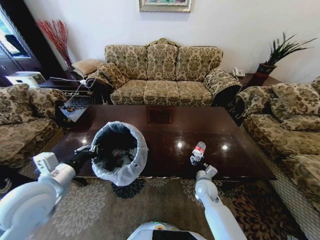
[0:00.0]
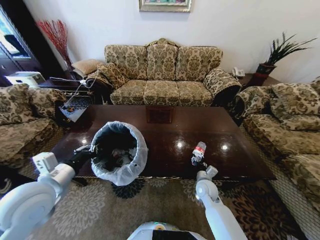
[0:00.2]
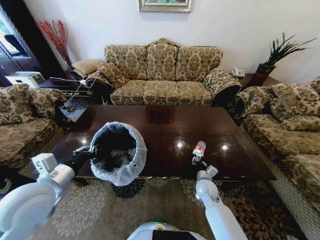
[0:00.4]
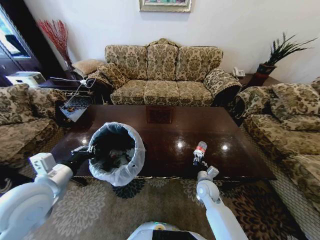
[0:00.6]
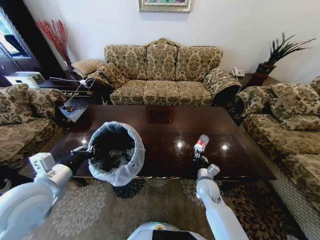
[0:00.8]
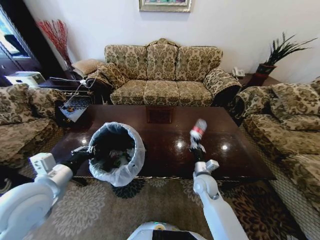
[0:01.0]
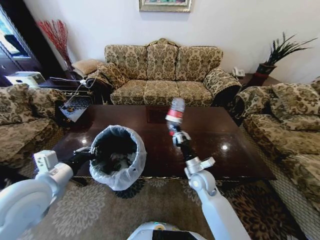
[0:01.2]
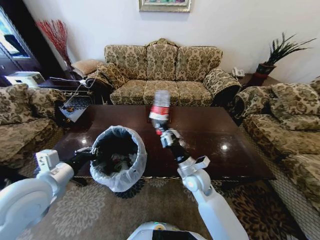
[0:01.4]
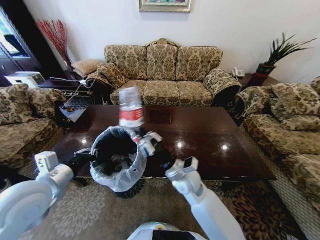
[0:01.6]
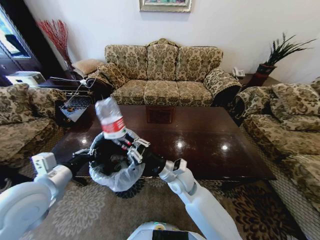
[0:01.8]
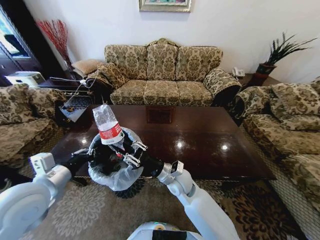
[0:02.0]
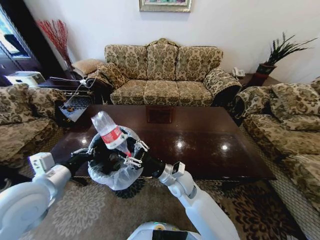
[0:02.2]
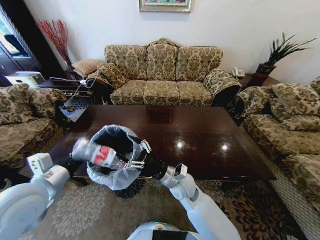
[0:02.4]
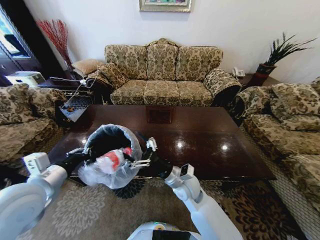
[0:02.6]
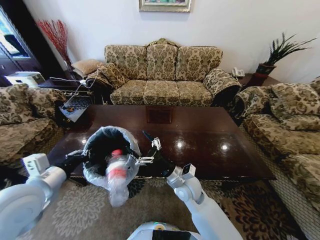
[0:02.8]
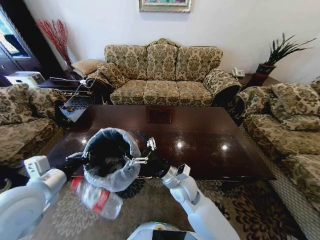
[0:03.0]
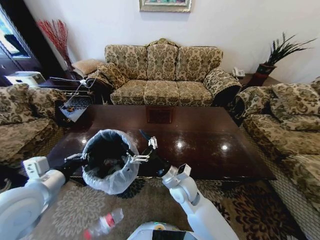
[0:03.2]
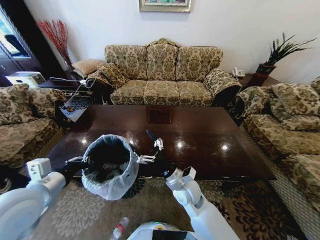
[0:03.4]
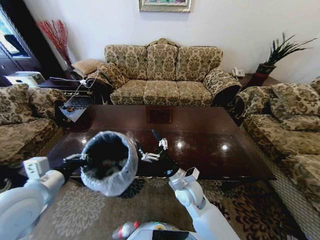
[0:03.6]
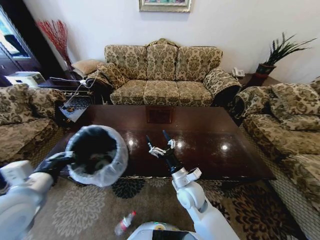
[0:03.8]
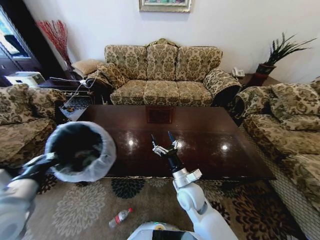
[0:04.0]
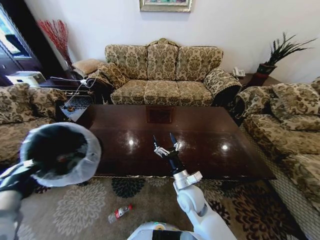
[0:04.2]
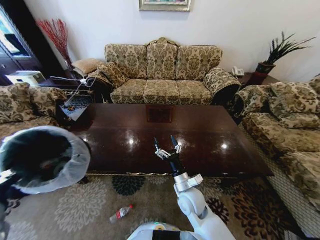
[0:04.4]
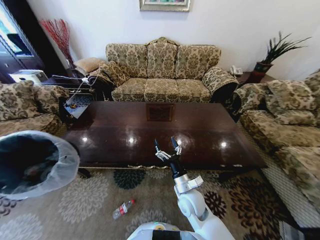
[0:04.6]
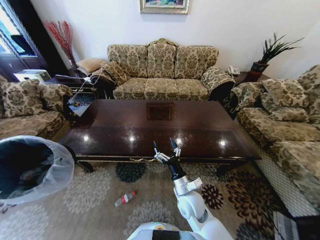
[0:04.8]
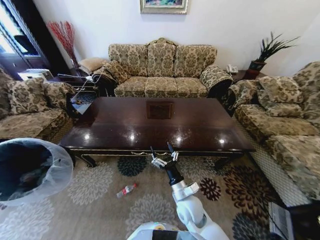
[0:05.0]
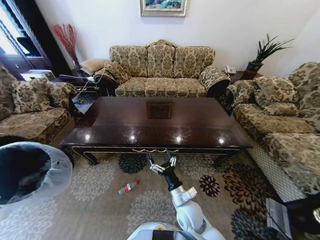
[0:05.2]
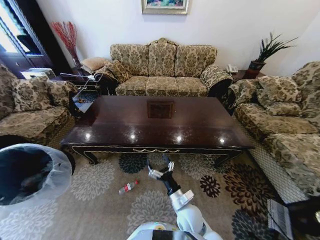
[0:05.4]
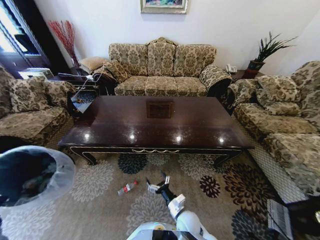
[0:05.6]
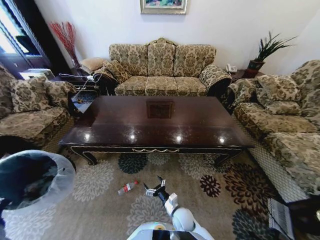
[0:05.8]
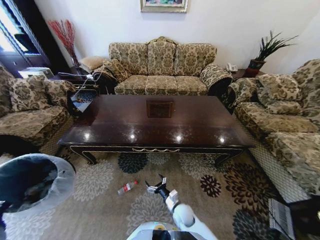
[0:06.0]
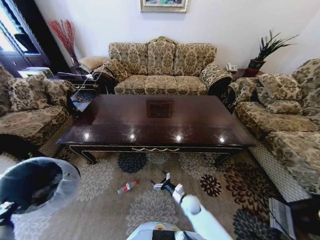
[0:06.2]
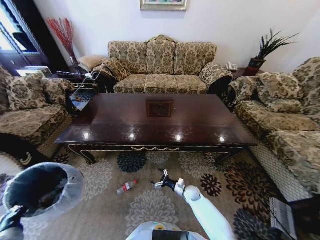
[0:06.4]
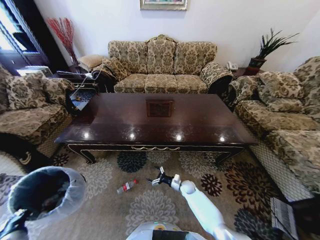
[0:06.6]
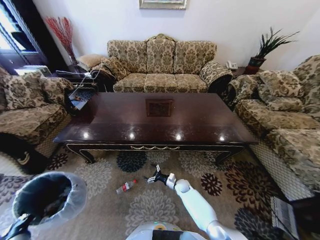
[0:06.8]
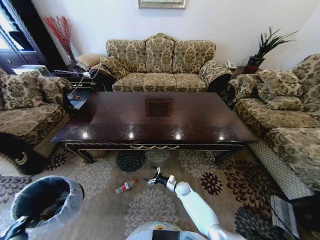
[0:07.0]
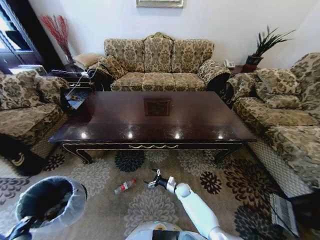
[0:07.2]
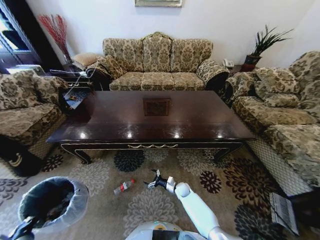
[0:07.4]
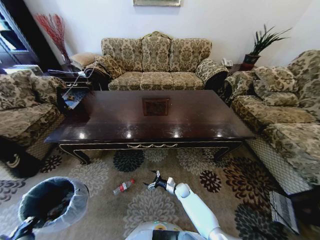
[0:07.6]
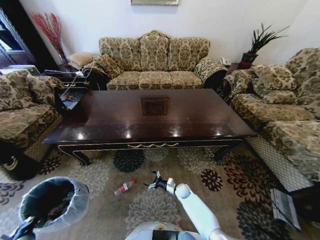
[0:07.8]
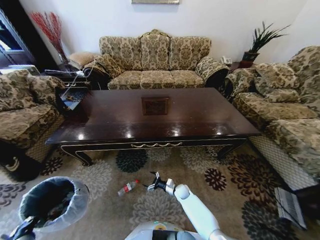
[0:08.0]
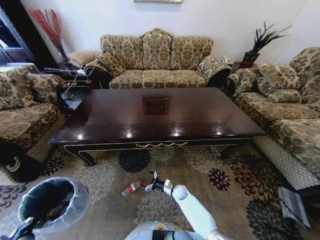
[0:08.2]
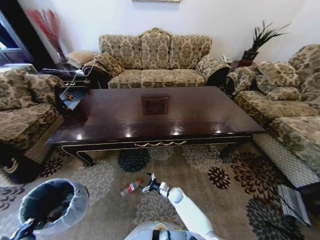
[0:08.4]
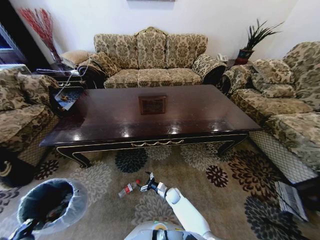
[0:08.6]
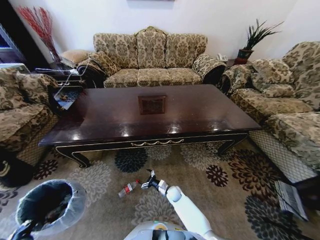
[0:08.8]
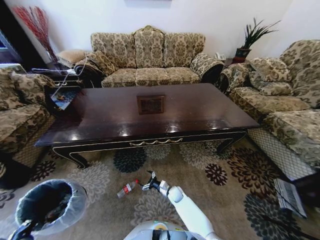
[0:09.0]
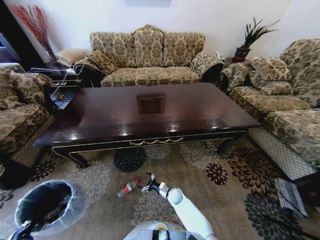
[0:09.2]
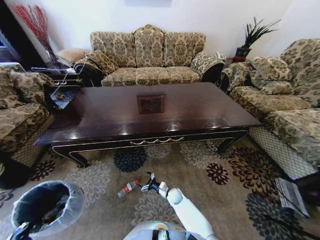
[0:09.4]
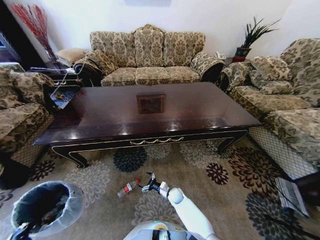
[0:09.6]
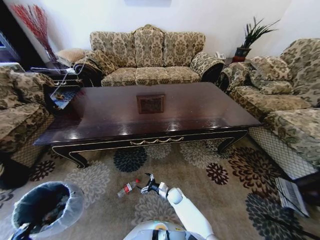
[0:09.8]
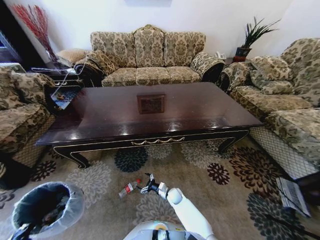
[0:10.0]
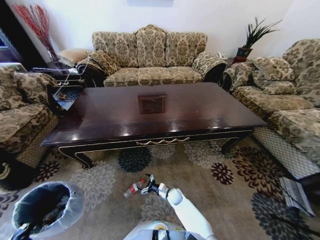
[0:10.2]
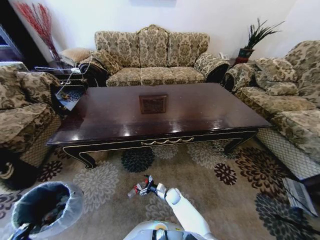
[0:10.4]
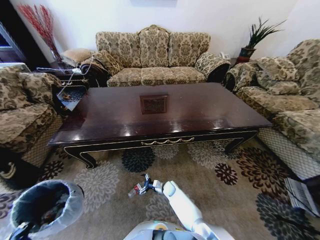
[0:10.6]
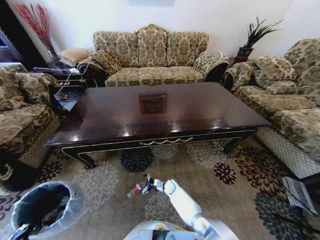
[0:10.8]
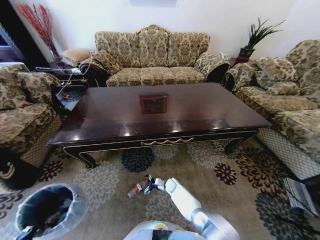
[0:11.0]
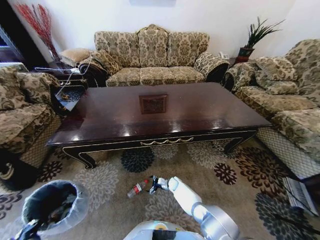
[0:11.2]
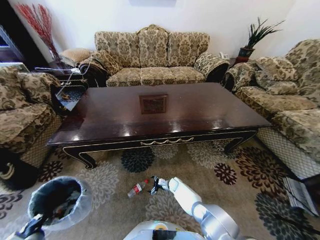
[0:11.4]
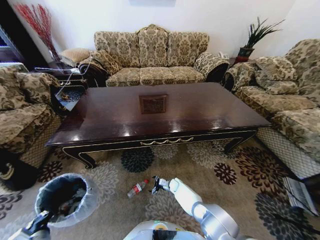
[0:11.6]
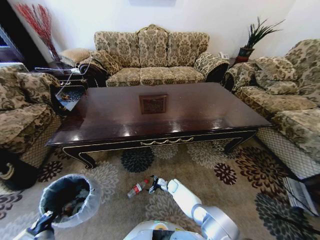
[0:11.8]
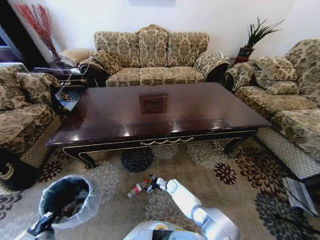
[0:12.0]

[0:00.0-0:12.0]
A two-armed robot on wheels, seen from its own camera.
Task of the whole recording: Move to the front of the table and place the trash on the table into the trash bin.
0:00.0 to 0:01.6: The right gripper travels upward and to the left by some 20 cm, and closes.
0:01.6 to 0:03.0: The right gripper opens up.
0:03.0 to 0:04.4: The left gripper goes roughly 10 cm backward and to the left, while the right gripper changes place by roughly 5 cm.
0:04.4 to 0:06.0: The left gripper moves downward, approximately 10 cm, while the right gripper travels downward by roughly 20 cm.
0:06.0 to 0:07.6: The right gripper is displaced forward and downward by some 15 cm. The left gripper shifts about 10 cm downward.
0:07.6 to 0:09.0: The right gripper shifts by about 5 cm.
0:10.4 to 0:12.0: The right gripper goes roughly 5 cm forward. Meanwhile the left gripper goes about 5 cm to the right.

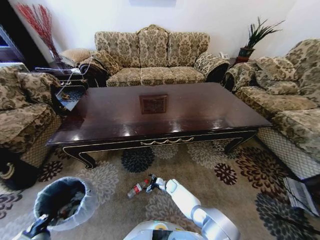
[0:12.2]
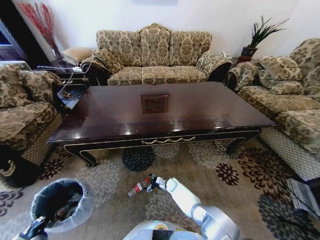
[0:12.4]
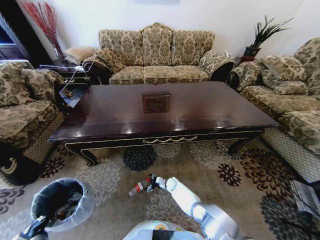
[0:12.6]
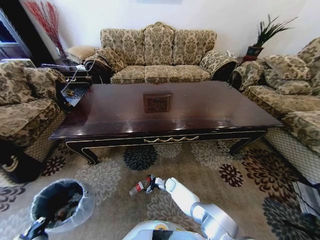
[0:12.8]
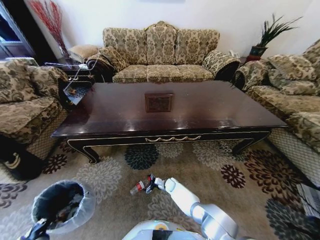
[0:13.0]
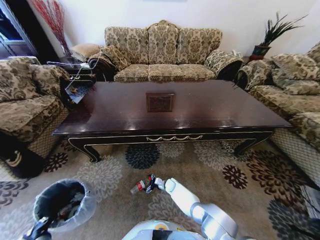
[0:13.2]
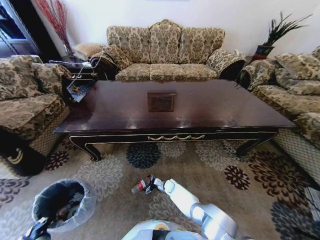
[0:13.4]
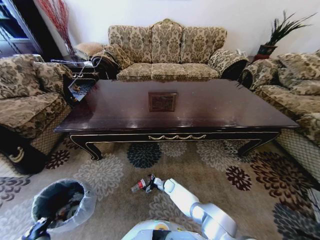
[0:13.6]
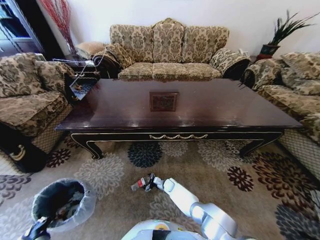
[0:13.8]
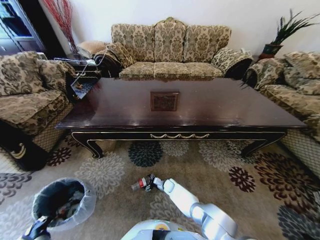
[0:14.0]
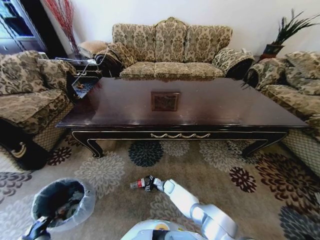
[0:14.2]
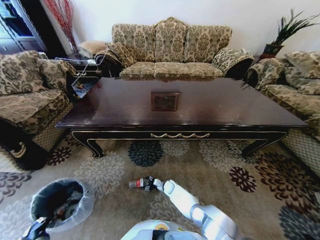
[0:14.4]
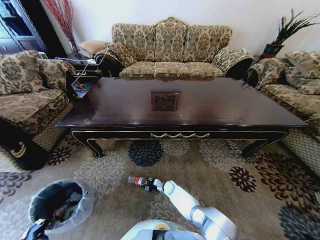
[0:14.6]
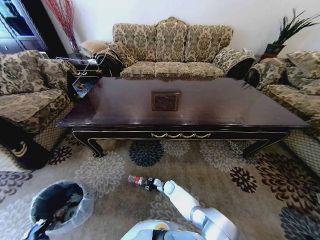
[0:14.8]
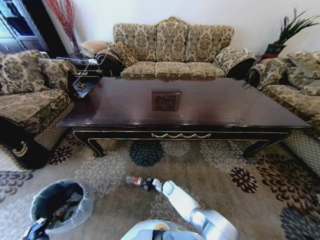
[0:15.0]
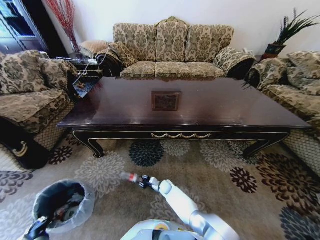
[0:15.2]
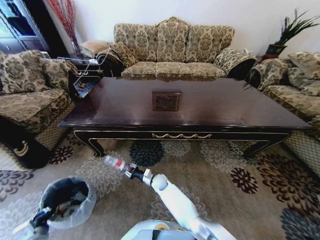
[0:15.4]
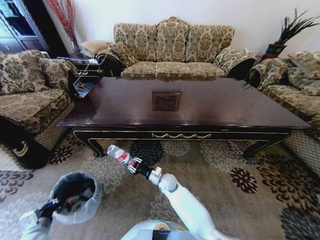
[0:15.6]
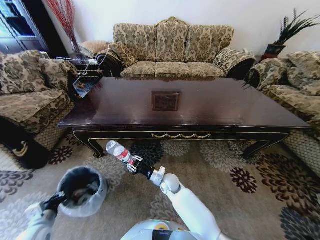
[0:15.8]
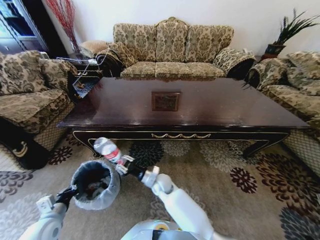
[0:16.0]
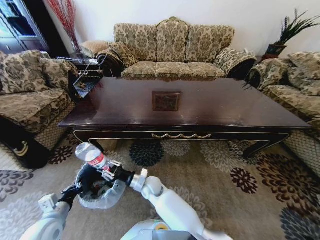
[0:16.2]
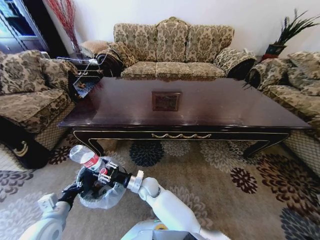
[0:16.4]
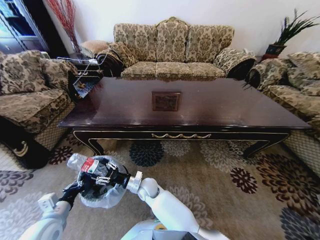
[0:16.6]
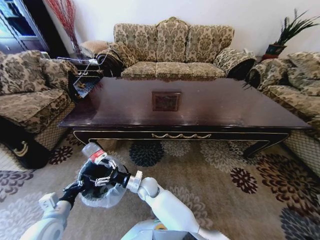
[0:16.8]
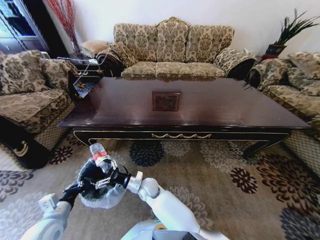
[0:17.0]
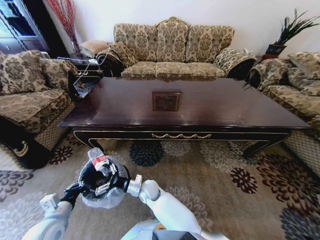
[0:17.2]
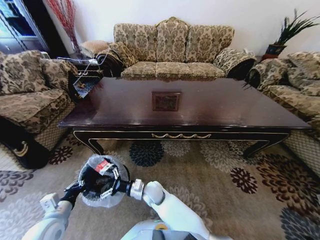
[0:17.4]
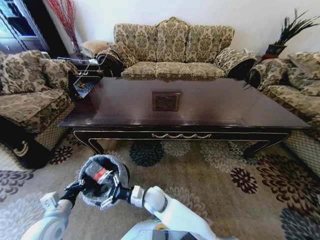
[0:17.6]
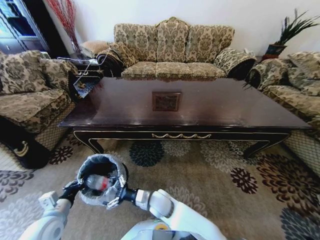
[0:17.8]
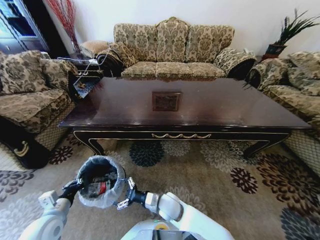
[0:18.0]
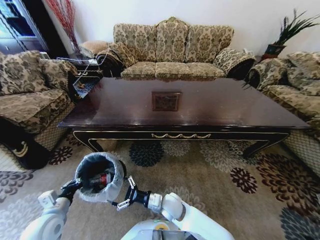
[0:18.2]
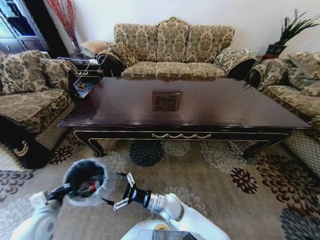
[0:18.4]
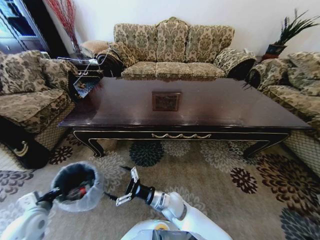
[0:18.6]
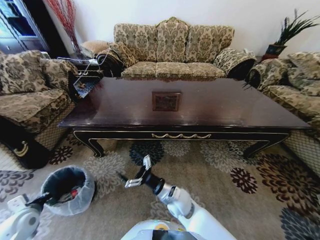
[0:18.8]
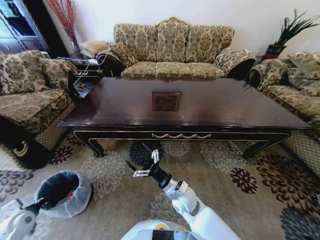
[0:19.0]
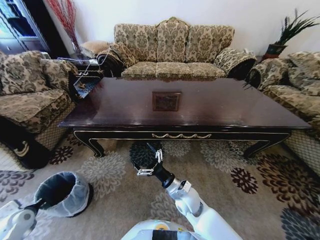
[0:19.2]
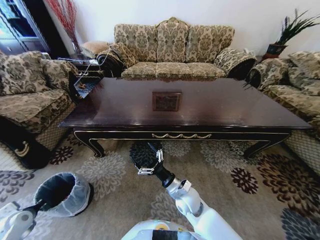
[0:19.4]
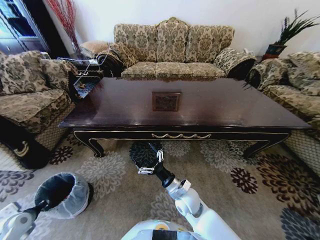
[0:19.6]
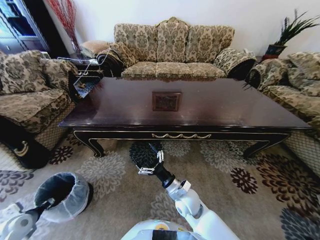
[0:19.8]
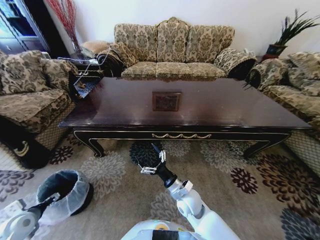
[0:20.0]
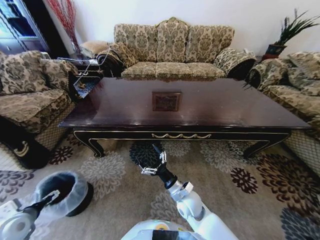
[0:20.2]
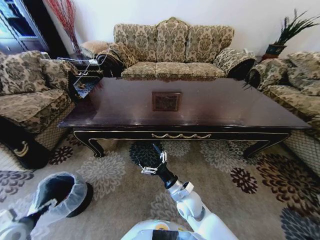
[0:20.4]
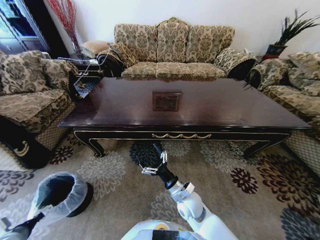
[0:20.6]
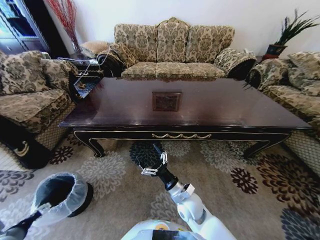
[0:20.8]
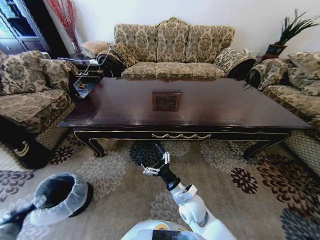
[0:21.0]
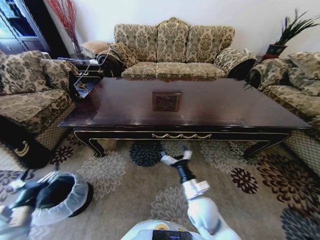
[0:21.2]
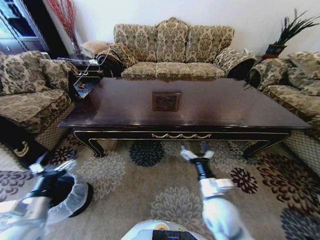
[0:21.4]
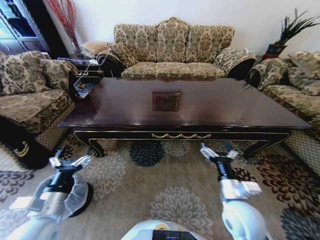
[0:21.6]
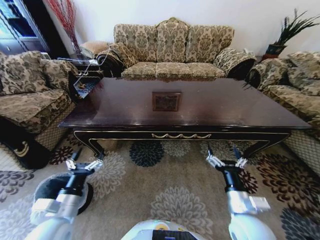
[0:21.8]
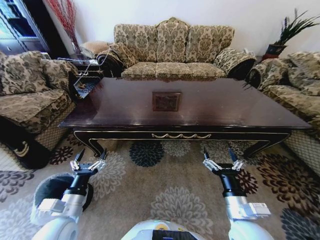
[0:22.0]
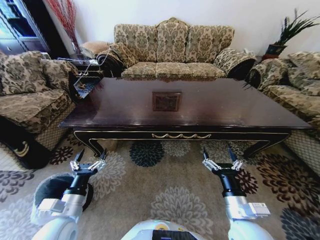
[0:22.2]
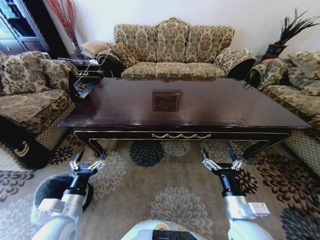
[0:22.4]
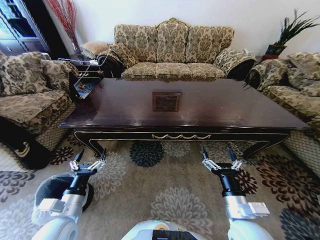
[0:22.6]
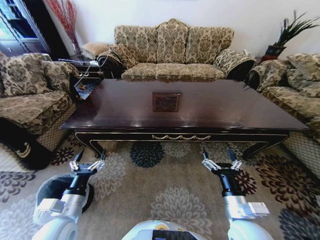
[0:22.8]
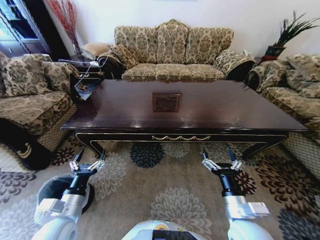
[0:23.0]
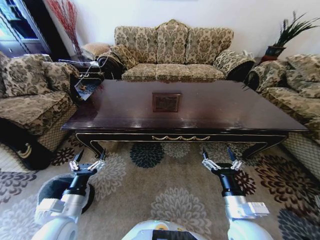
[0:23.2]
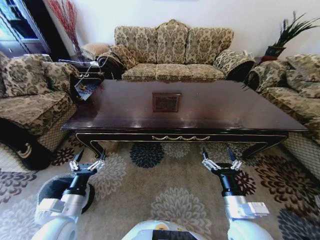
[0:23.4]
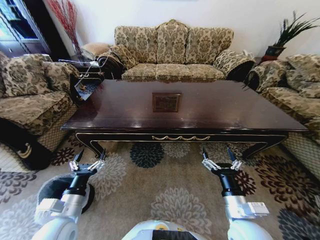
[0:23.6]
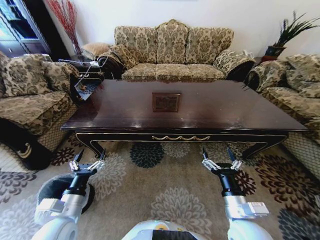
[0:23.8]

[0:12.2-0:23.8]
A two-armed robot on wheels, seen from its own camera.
Task of the whole recording: Move to the front of the table and place the trash on the table into the trash bin.
0:13.6 to 0:15.0: The right gripper closes its fingers.
0:15.0 to 0:16.6: The right gripper travels upward and to the left by roughly 25 cm; the left gripper moves upward and forward, some 15 cm.
0:16.6 to 0:18.0: The right gripper is displaced to the right and backward by about 10 cm, and opens.
0:18.0 to 0:19.4: The left gripper moves to the left, roughly 20 cm; the right gripper shifts some 5 cm to the right.
0:19.4 to 0:21.0: The left gripper is displaced upward, to the right and backward by about 20 cm, and opens up.
0:21.0 to 0:22.4: The right gripper moves to the right, backward and upward, some 15 cm. The left gripper moves to the right, roughly 15 cm.
0:22.4 to 0:23.8: The two grippers keep their place.
